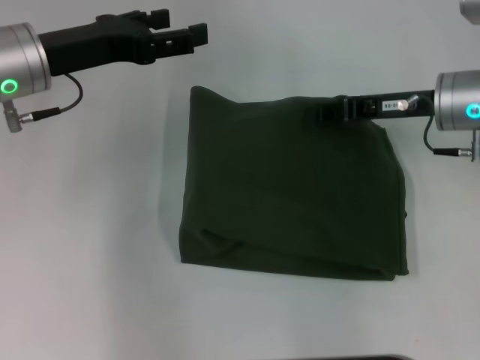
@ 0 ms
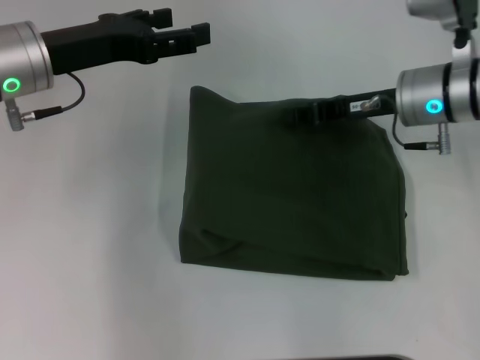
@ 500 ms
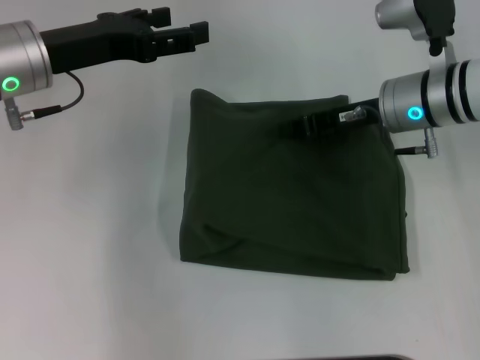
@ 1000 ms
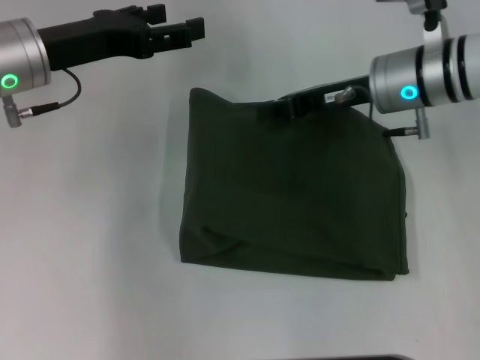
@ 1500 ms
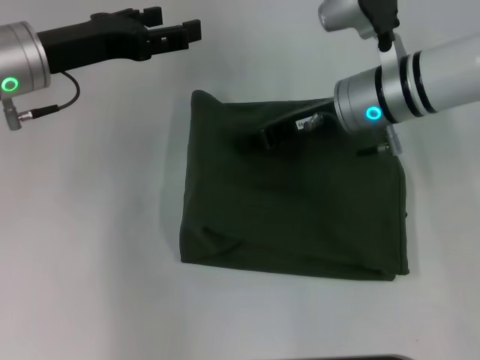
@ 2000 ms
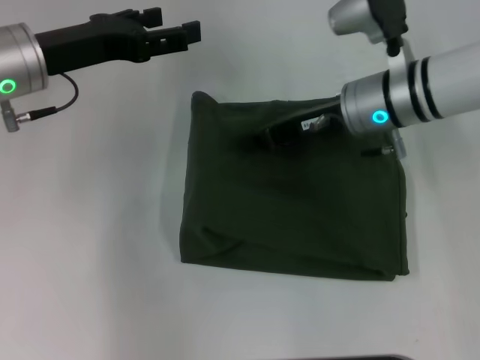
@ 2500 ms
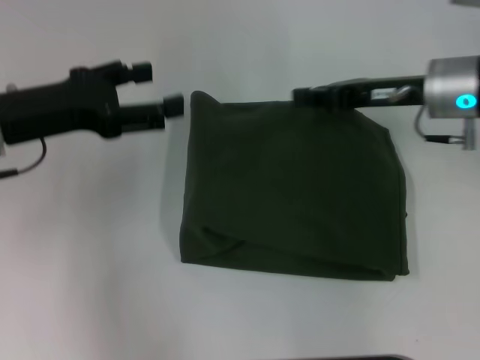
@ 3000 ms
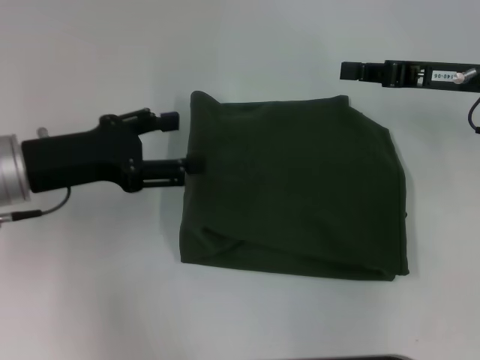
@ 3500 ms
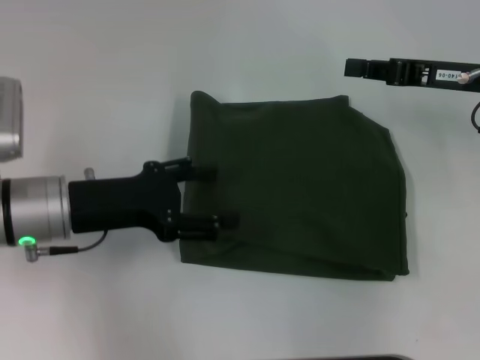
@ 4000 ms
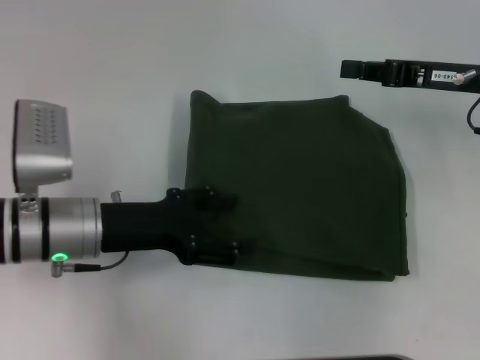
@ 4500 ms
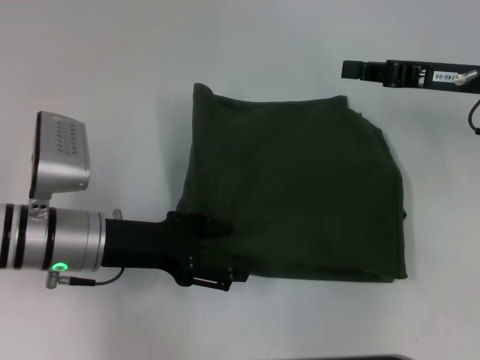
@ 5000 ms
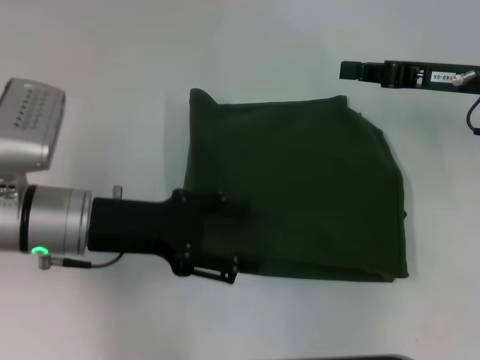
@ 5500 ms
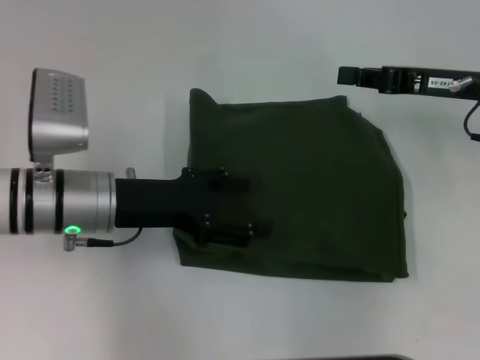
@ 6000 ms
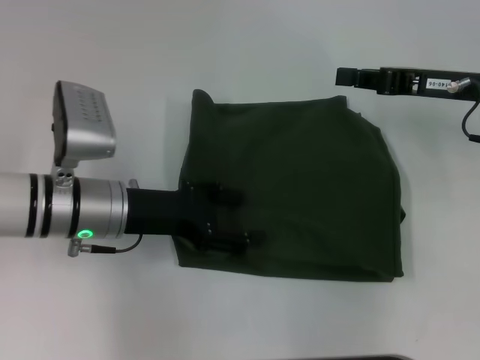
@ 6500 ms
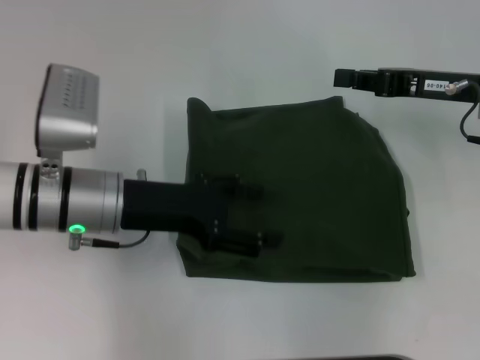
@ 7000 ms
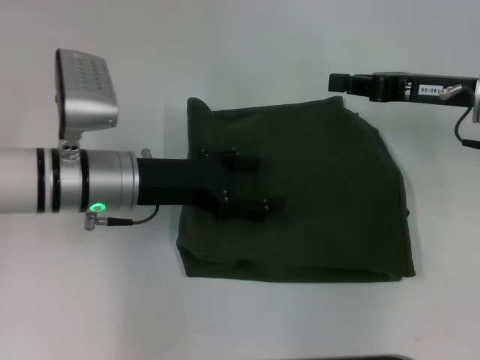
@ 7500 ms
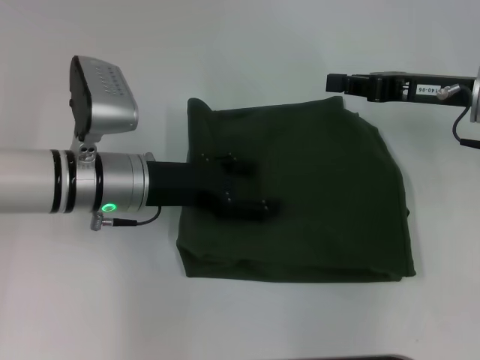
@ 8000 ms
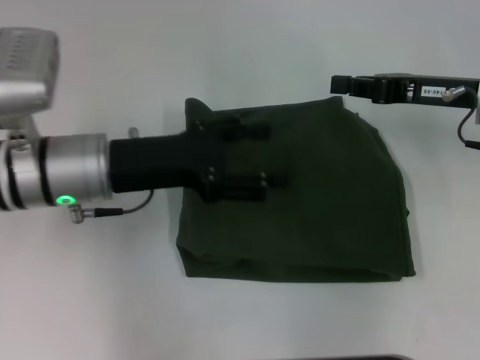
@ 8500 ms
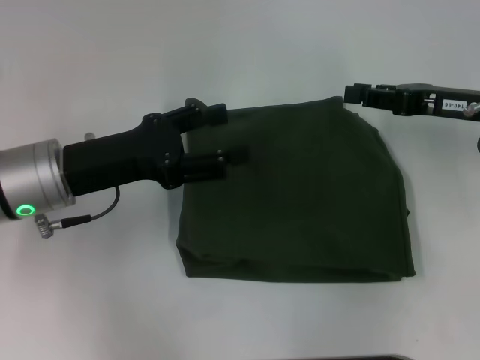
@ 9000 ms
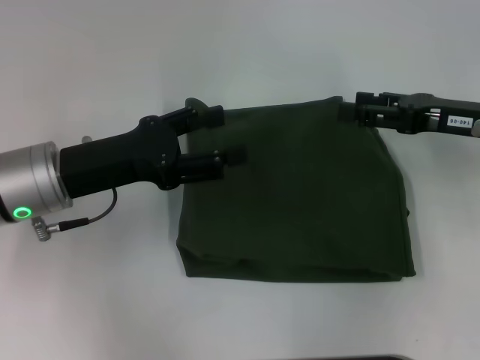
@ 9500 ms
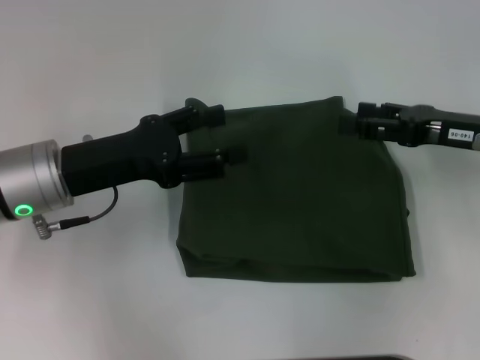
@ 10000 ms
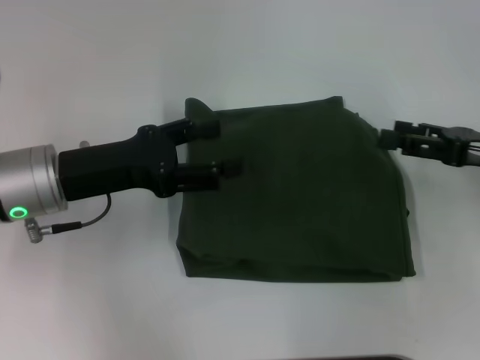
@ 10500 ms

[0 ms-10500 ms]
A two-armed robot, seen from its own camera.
0 ms to 2000 ms: The right gripper goes approximately 10 cm to the left.
2000 ms to 4000 ms: The right gripper heads to the right, covering approximately 15 cm; the left gripper goes approximately 10 cm backward and downward.
4000 ms to 6500 ms: The left gripper changes place by approximately 5 cm.
8500 ms to 10500 ms: The right gripper moves backward and to the right, some 10 cm, and opens its fingers.

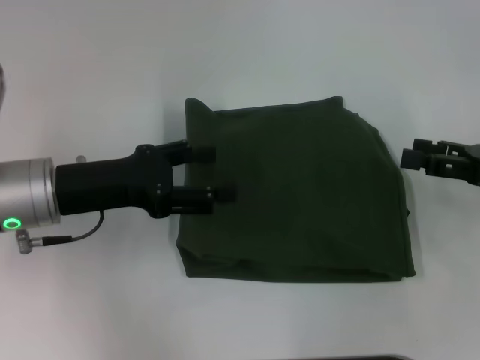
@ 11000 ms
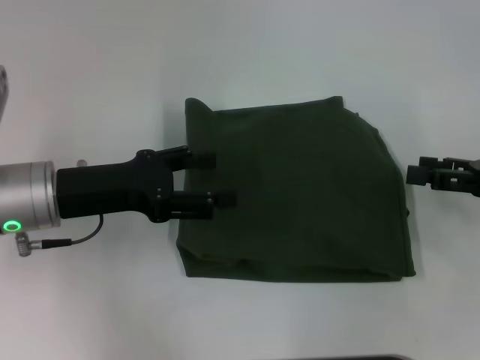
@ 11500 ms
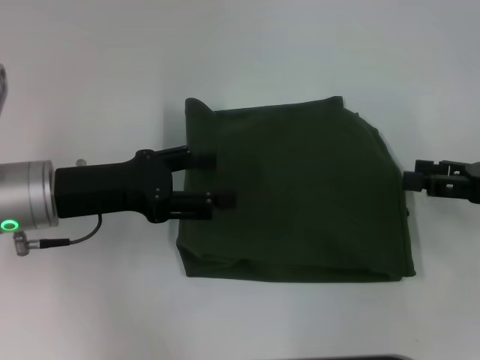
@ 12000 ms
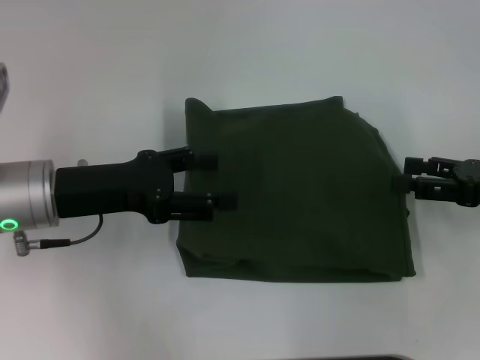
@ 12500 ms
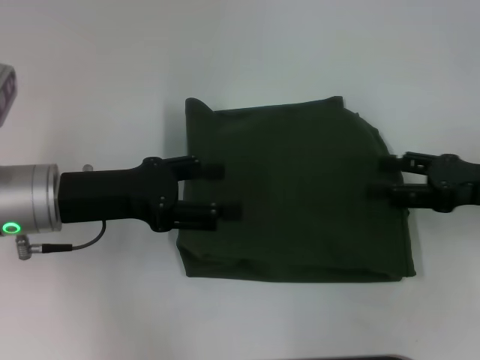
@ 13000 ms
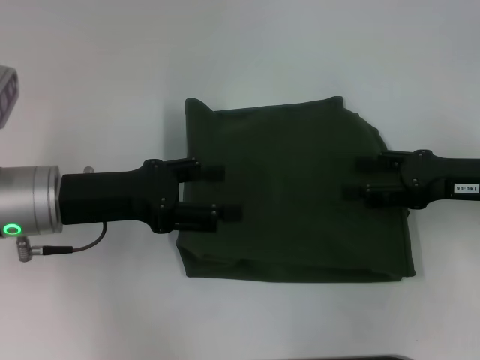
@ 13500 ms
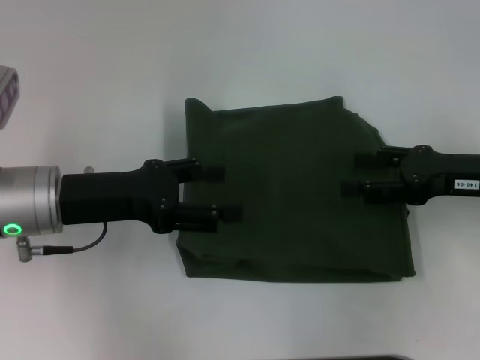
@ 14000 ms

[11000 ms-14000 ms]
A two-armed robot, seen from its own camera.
11000 ms to 12500 ms: The grippers make only small movements.
12500 ms to 14000 ms: The right gripper ends up some 5 cm from where it was.

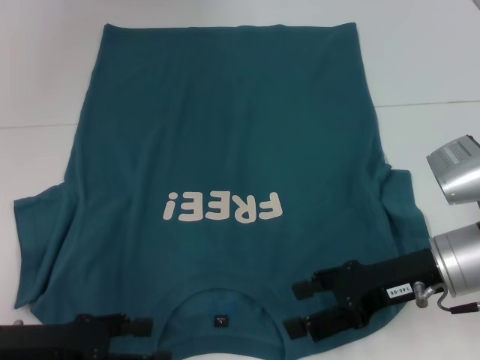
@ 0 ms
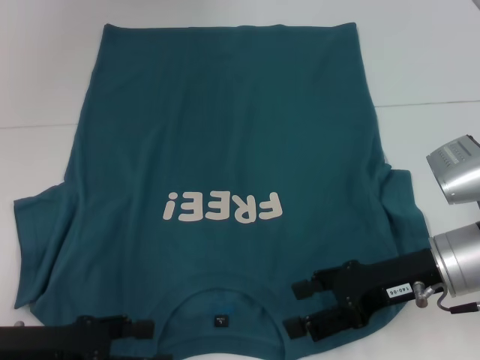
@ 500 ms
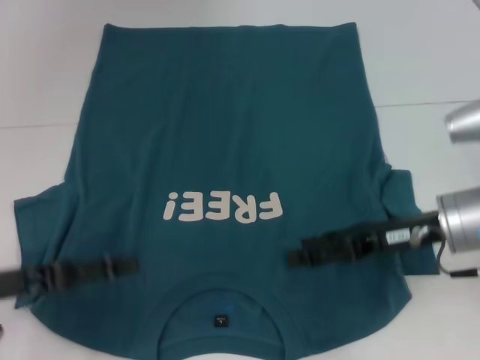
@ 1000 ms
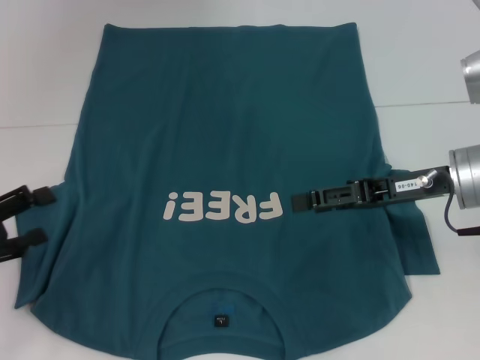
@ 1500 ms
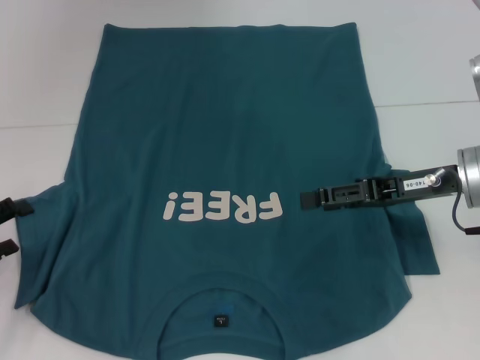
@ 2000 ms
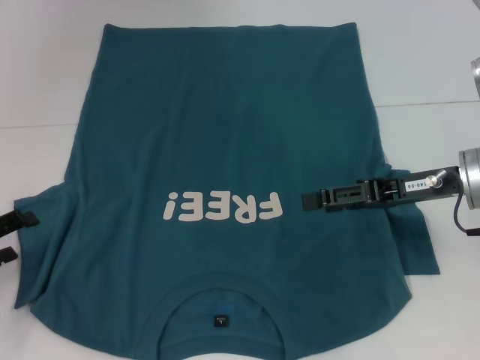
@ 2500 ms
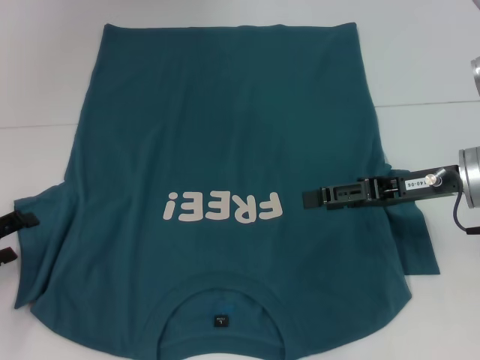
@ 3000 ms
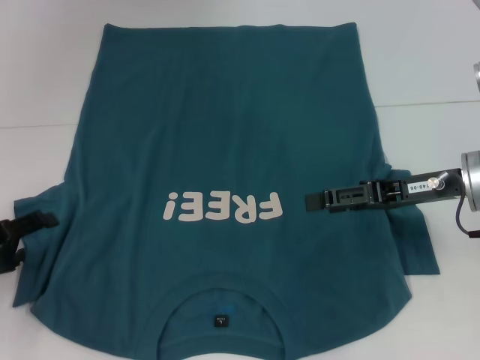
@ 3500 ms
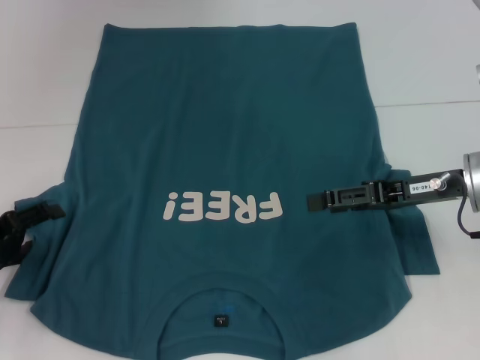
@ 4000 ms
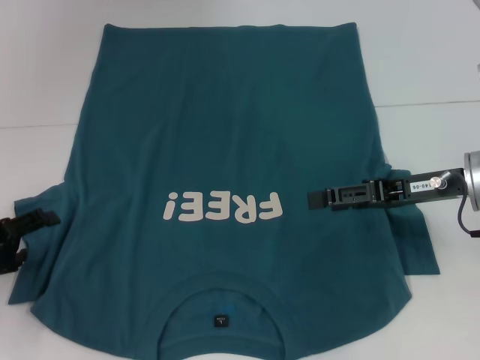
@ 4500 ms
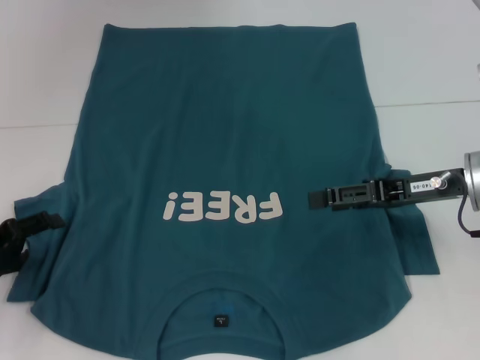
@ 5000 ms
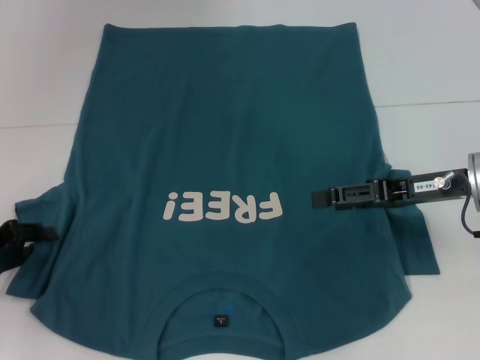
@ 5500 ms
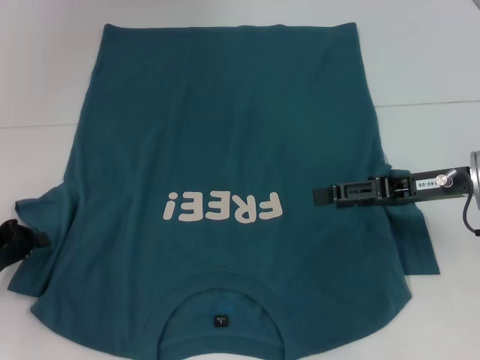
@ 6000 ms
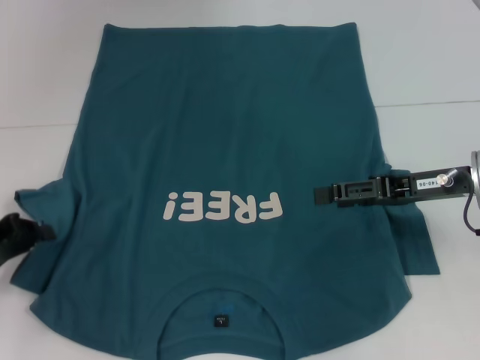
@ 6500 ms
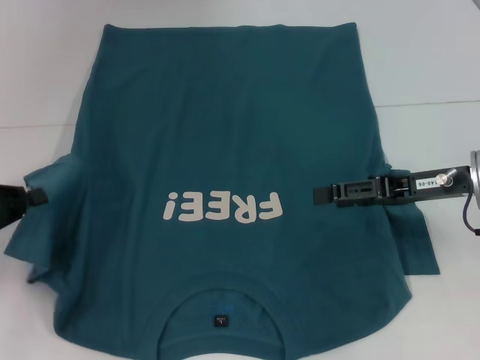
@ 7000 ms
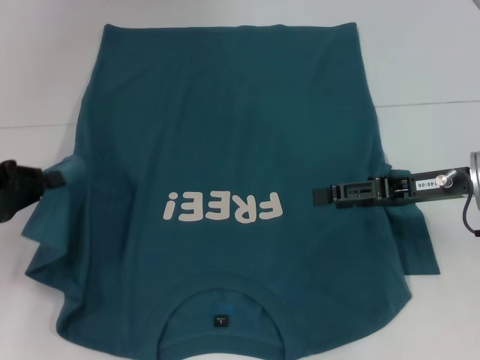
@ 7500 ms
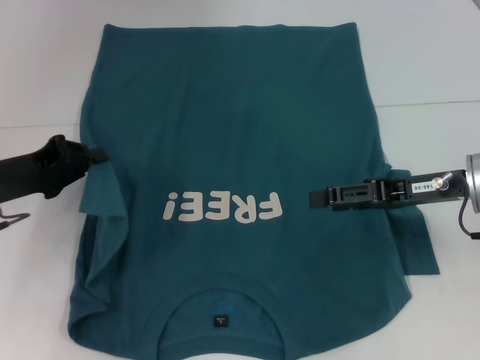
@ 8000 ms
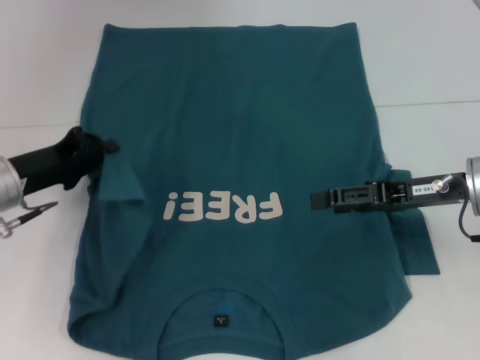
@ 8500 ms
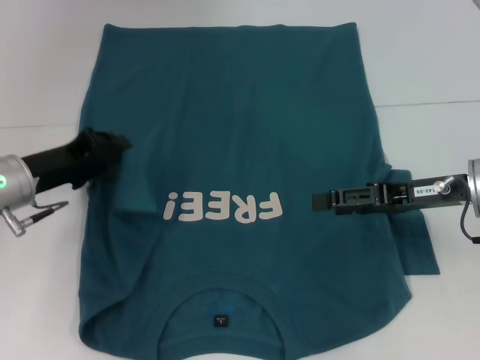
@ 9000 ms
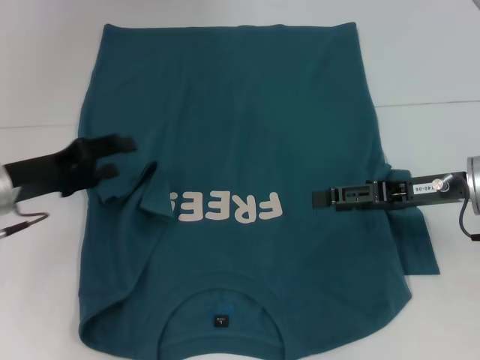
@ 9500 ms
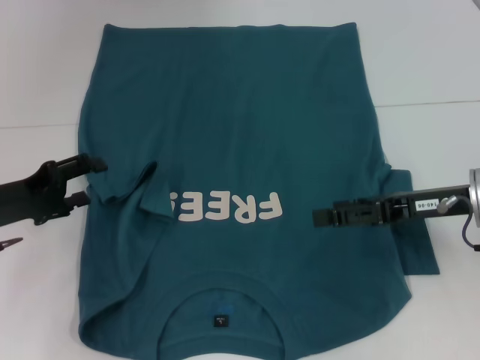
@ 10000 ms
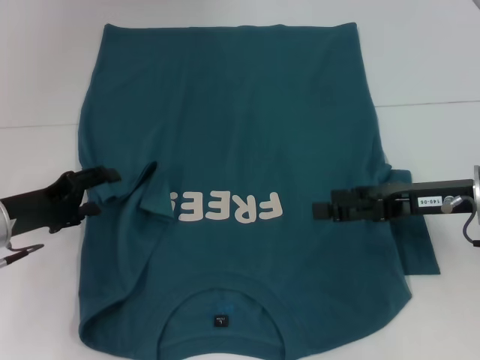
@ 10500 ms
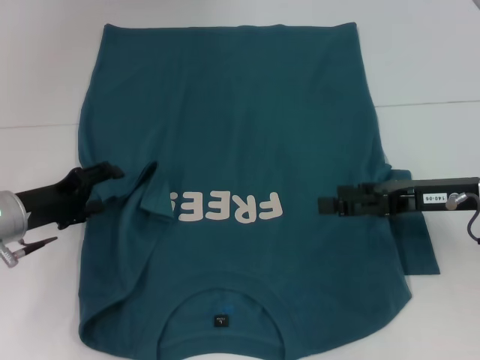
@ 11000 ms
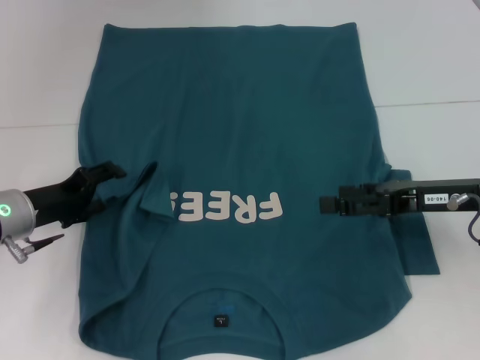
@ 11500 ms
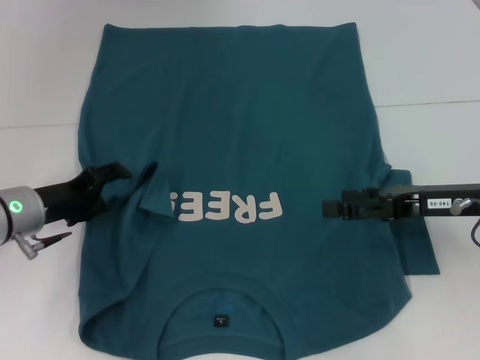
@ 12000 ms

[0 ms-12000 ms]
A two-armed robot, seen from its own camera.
0 ms to 2000 ms: The left gripper heads to the left, covering some 10 cm; the right gripper is displaced forward by approximately 5 cm.
2000 ms to 4000 ms: There are only small adjustments of the grippers.
4000 ms to 6000 ms: The left gripper closes its fingers.
6000 ms to 8000 ms: The left gripper is displaced to the right by roughly 5 cm.
8000 ms to 10000 ms: The left gripper opens its fingers.
10000 ms to 12000 ms: The left gripper moves approximately 5 cm.
